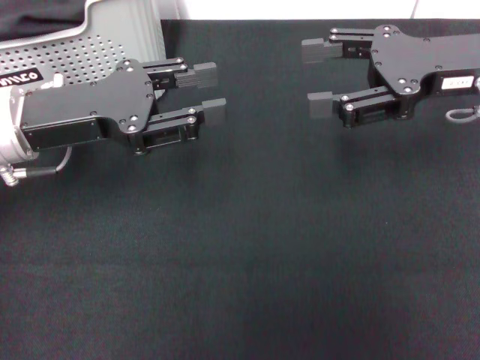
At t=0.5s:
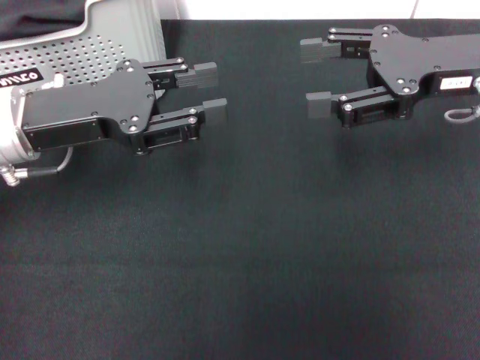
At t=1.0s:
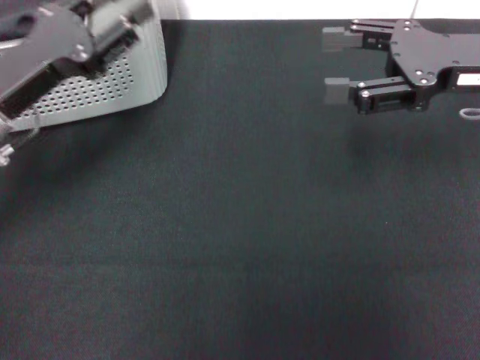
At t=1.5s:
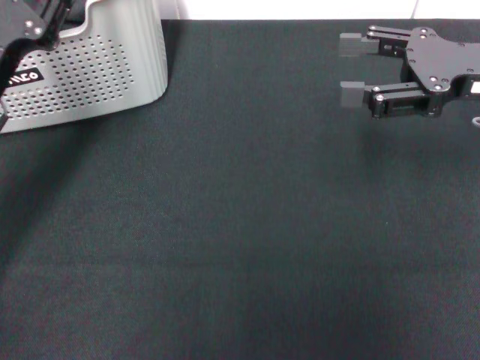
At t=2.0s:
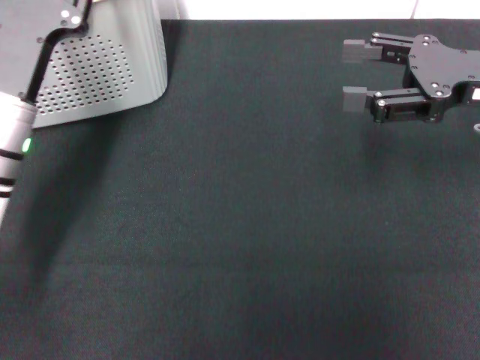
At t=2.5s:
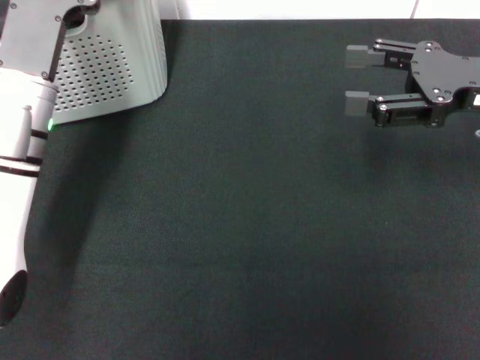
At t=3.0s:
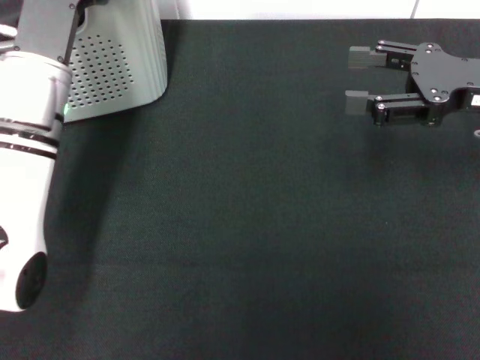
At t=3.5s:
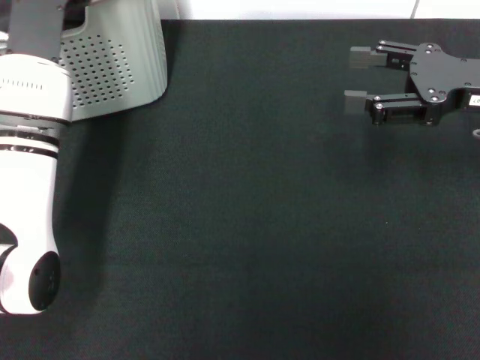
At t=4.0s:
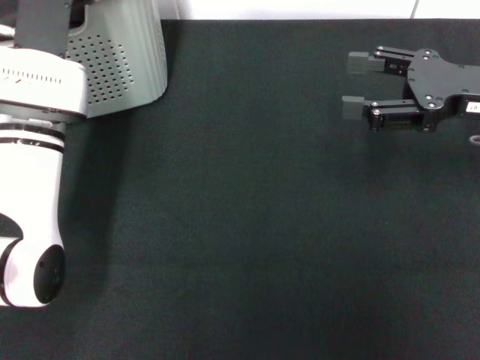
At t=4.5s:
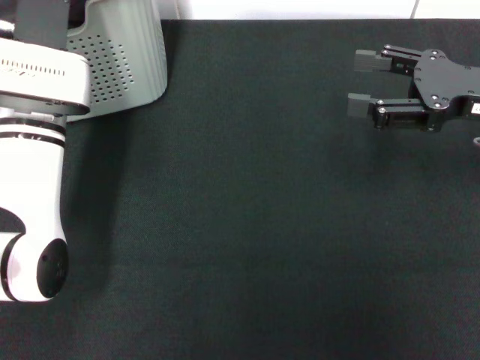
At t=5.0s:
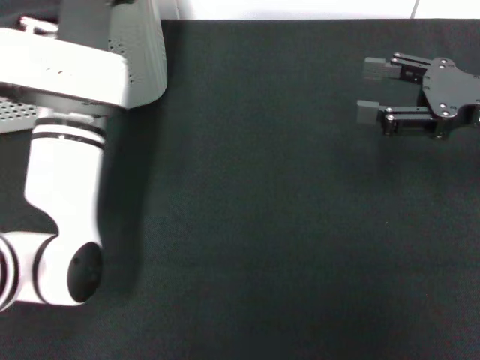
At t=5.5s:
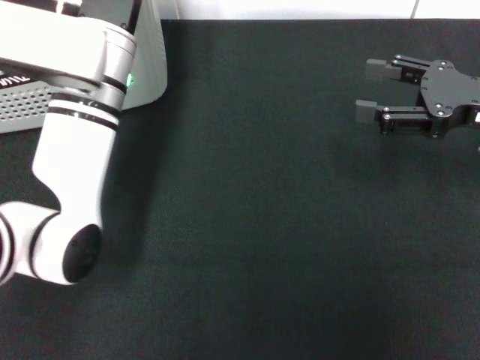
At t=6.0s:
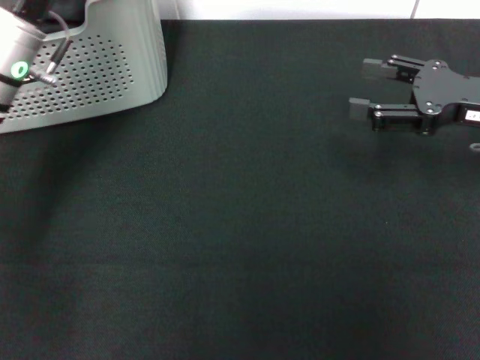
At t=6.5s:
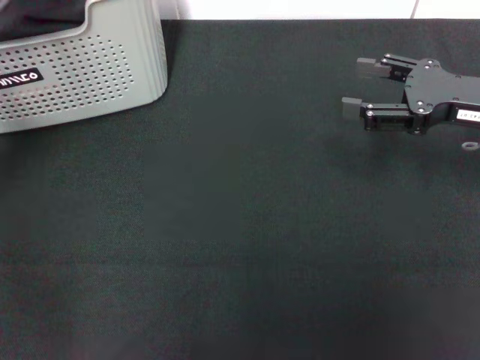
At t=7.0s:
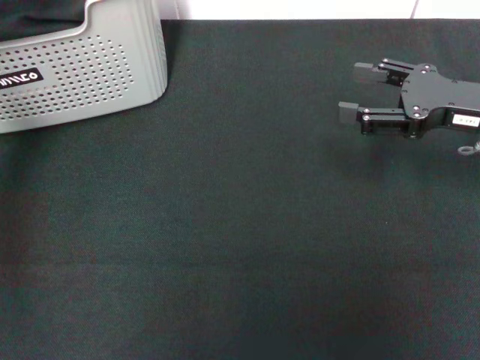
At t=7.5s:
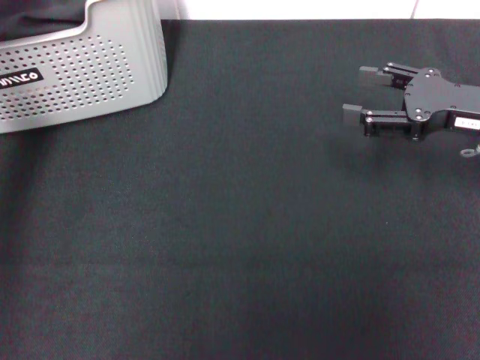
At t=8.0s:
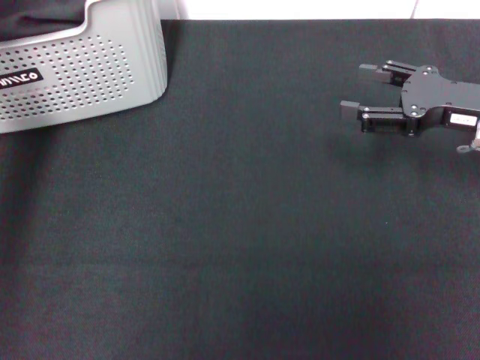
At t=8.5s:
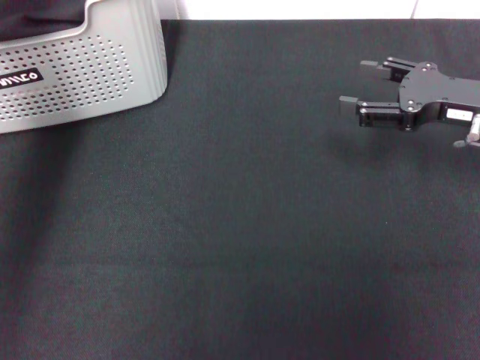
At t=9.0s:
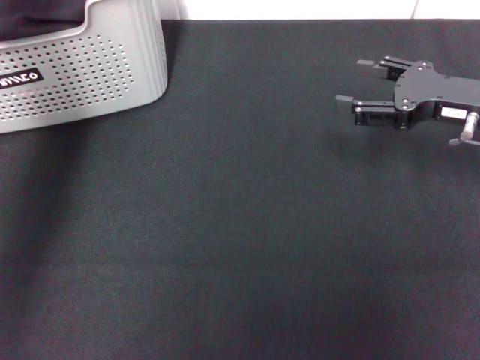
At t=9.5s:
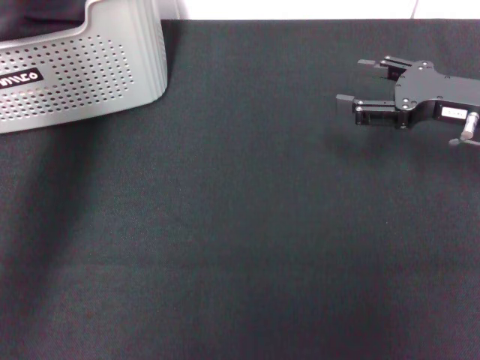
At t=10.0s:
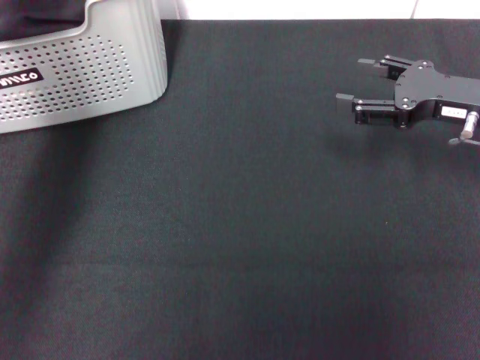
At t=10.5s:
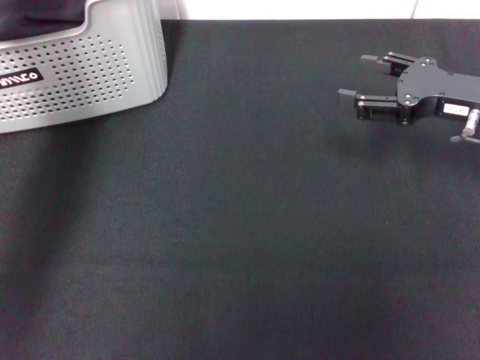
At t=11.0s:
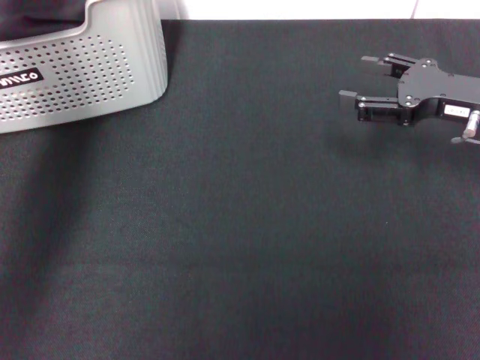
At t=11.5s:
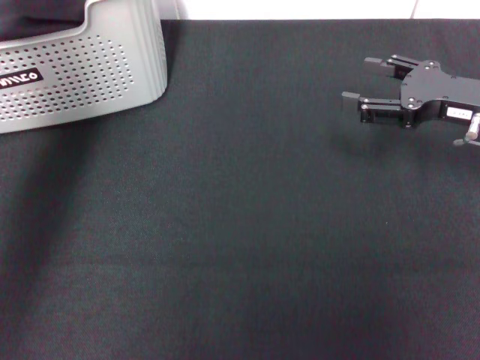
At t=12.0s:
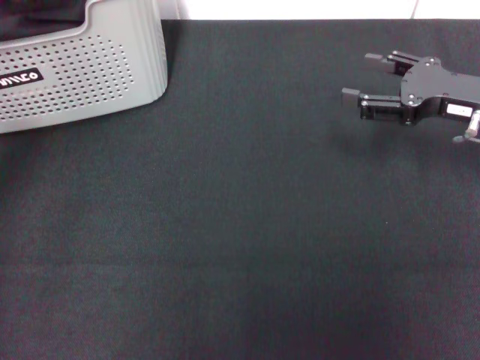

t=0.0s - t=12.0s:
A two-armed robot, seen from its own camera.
Task of the whole recording: pick up the towel from the storage box and lay it flat on the black tablecloth.
Step, t=0.0s - t=10.5s: Pick up a towel with the left gripper.
t=0.0s - t=2.0s: The left gripper heads downward, covering about 5 cm.
t=2.0s - t=4.0s: The left gripper shifts by roughly 5 cm.
t=4.0s - t=6.0s: The left gripper ends up about 5 cm from where it was.
t=6.0s - t=8.0s: The left gripper goes approximately 10 cm upward.
t=10.0s - t=12.0s: The left gripper closes its fingers.

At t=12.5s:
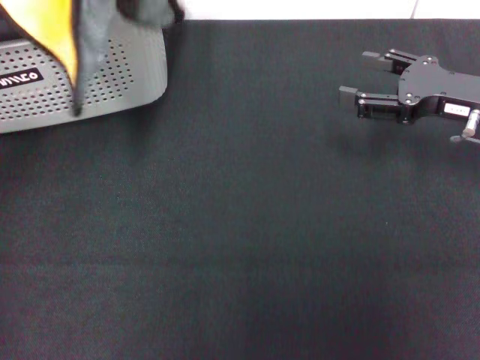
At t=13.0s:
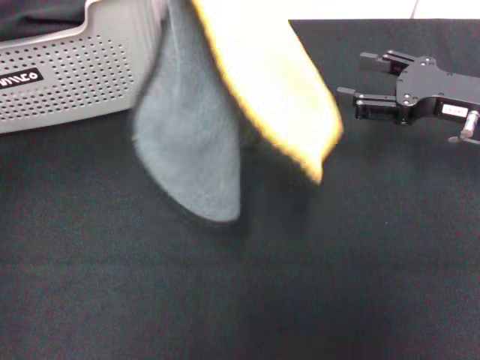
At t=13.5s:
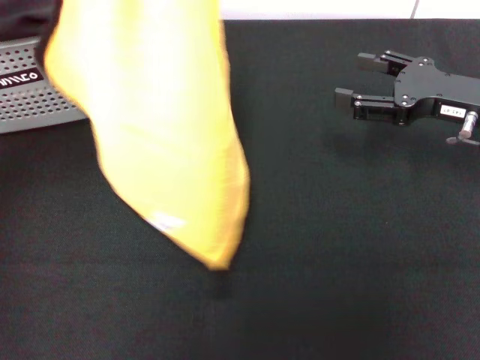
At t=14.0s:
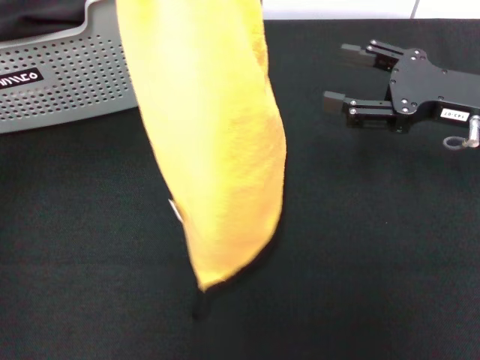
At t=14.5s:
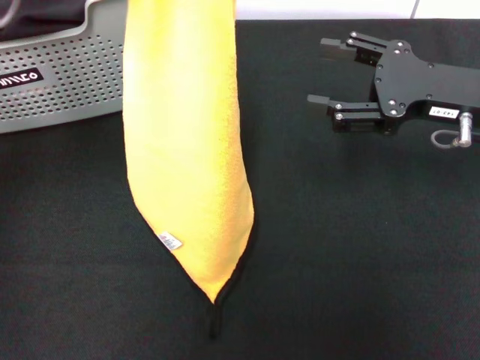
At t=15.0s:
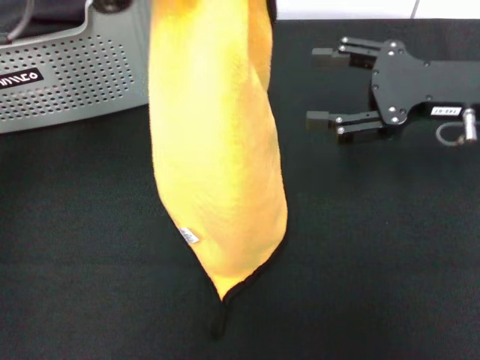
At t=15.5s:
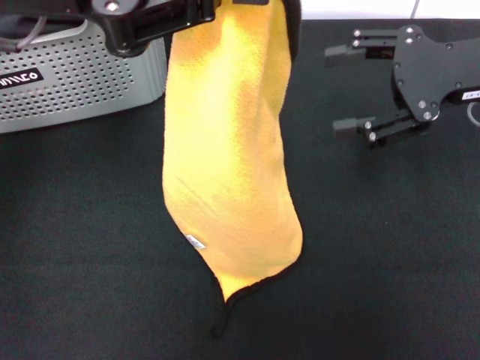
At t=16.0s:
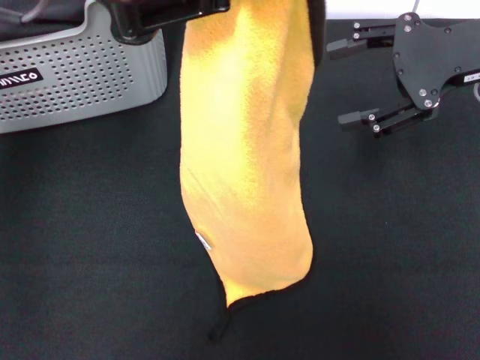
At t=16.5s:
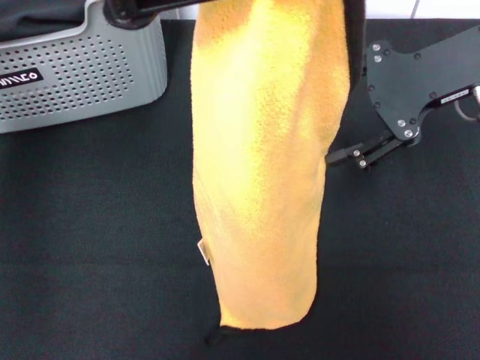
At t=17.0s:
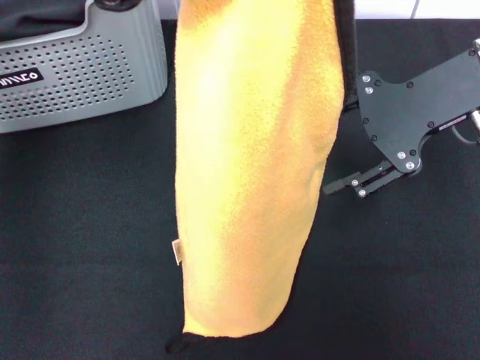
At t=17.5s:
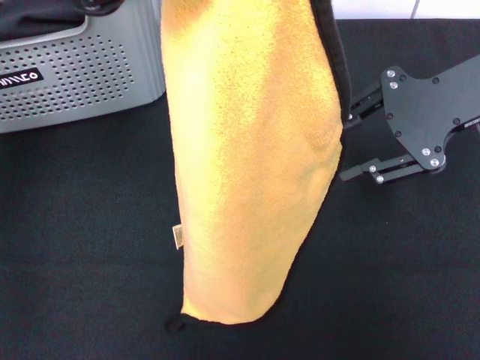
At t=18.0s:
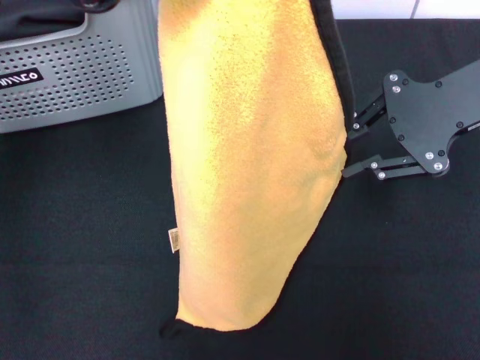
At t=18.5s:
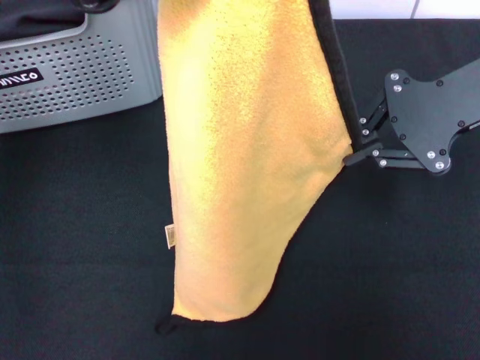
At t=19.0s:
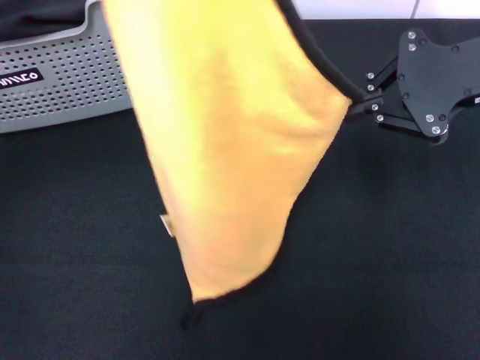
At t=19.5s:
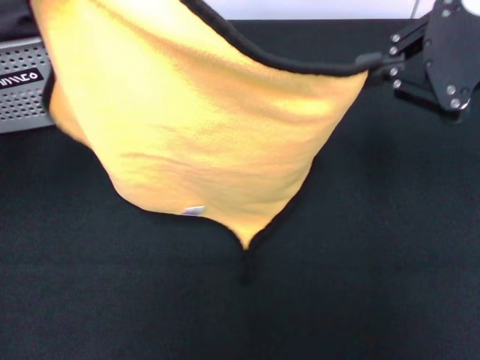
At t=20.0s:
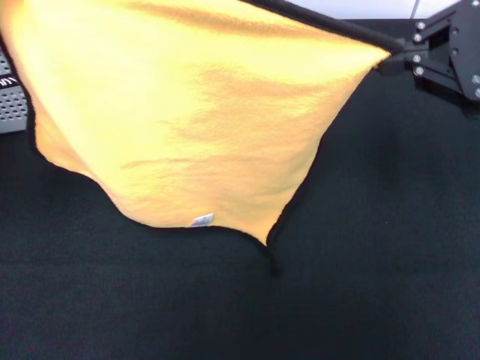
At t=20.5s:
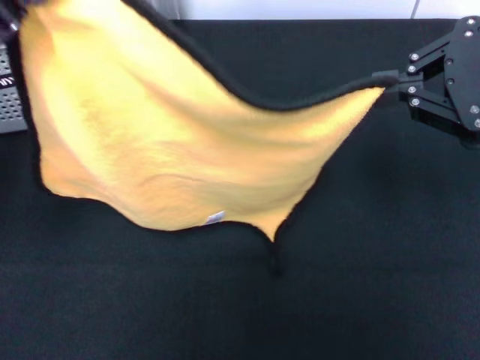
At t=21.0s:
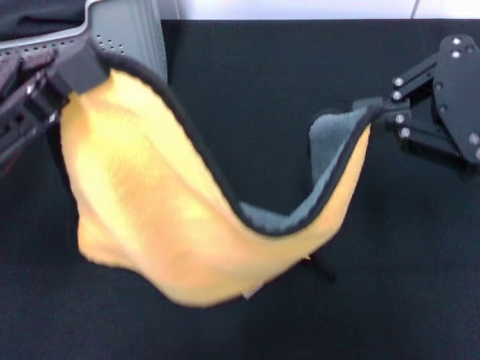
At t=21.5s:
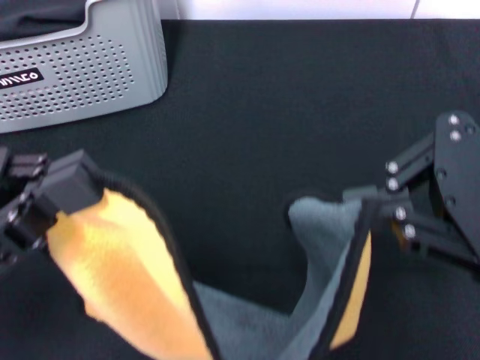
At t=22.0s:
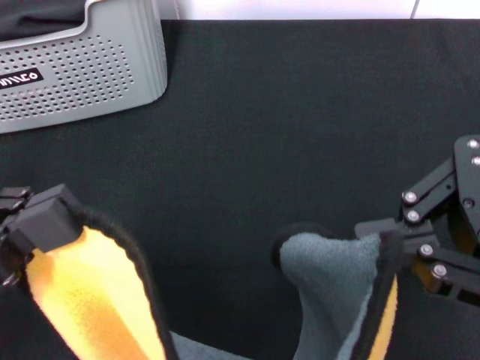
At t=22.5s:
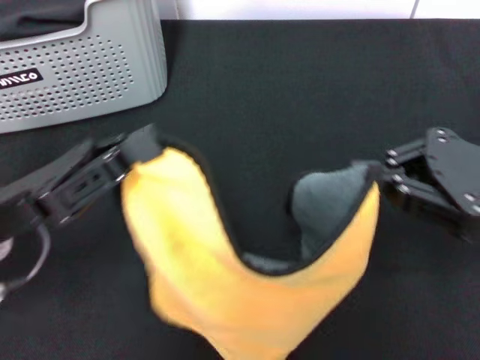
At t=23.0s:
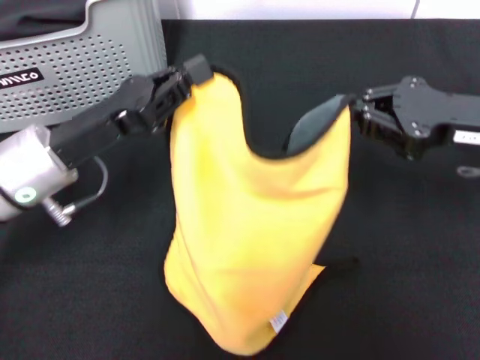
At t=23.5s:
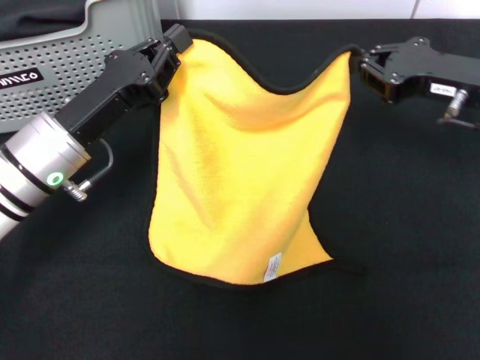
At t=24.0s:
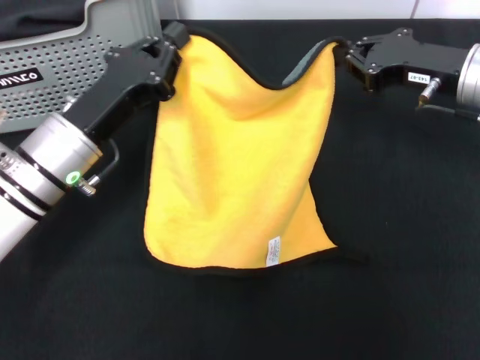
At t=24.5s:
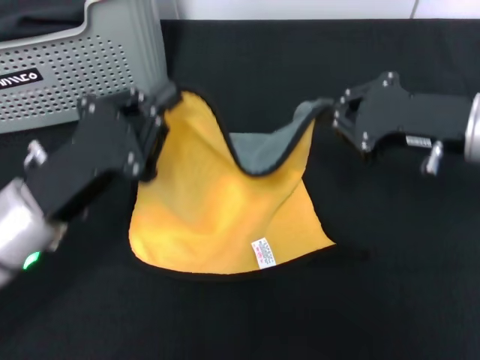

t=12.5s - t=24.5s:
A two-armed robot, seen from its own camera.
Task of the whole recording: pick up the towel from the storage box and lay it flat on the black tablecloth.
Step, t=12.5s - t=18.5s: Spread the towel flat with the left gripper.
t=14.5s - t=16.5s: The two grippers go approximately 5 cm upward.
t=16.5s - t=18.5s: The right gripper closes its fingers.
t=18.5s - t=20.5s: The right gripper travels backward by some 5 cm. Meanwhile the left gripper is displaced downward, to the left and backward by roughly 15 cm.
t=20.5s - t=22.5s: The two grippers go roughly 10 cm downward. The left gripper travels backward and back again, roughly 10 cm each way.
t=22.5s - t=24.5s: The left gripper reaches approximately 10 cm forward, then returns, while the right gripper goes roughly 5 cm forward.

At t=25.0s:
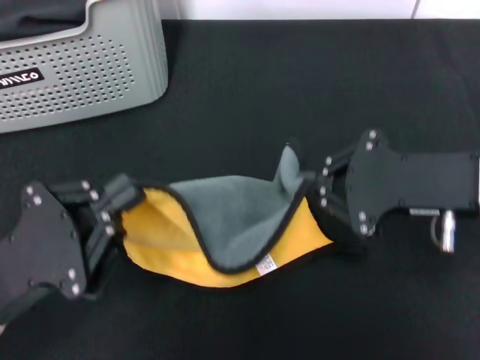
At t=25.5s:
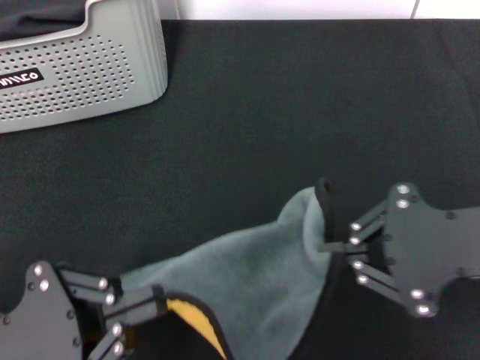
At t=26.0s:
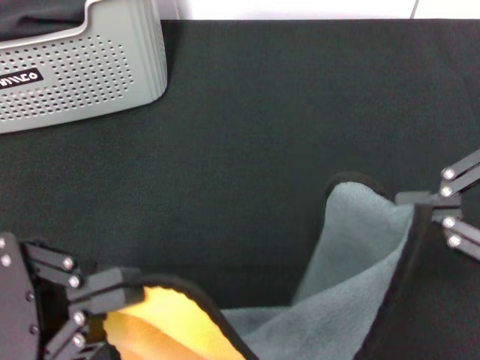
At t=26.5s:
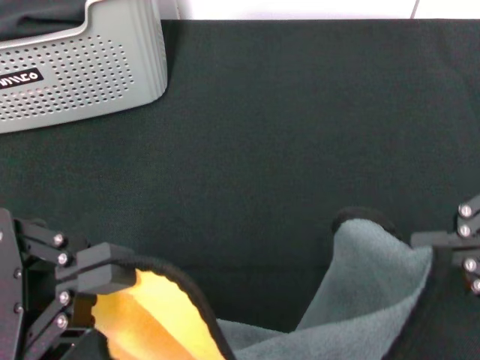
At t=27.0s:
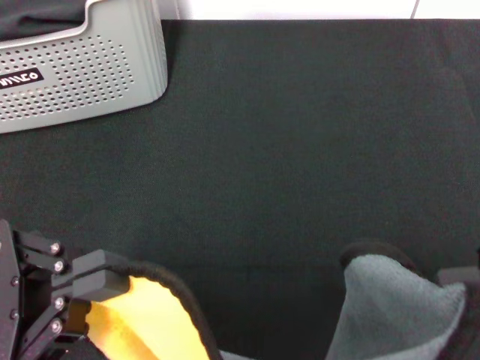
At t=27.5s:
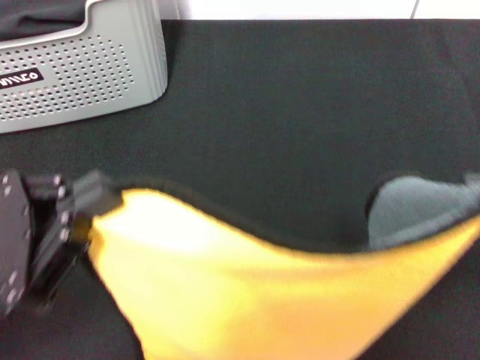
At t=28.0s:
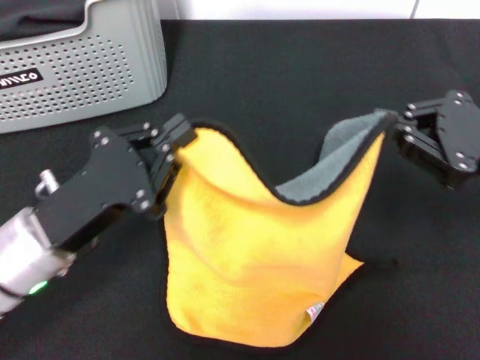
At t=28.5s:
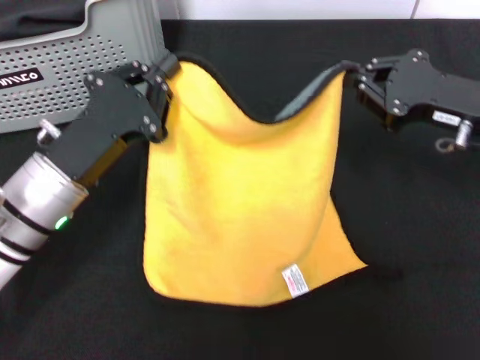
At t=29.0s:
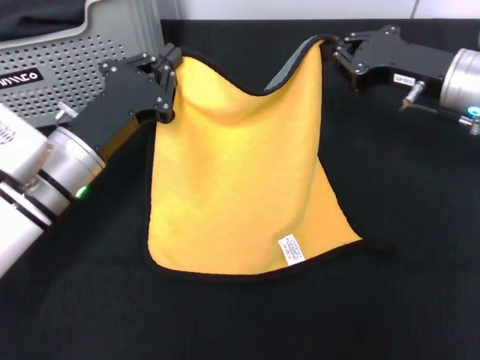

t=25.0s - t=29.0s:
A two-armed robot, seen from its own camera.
Task of the whole recording: pick up the towel from the storage box and lay it flat on the black tablecloth.
t=25.0s - t=27.0s: The right gripper goes some 15 cm backward, upward and to the right. The left gripper shifts some 5 cm upward.
t=27.0s - t=29.0s: The two grippers go approximately 20 cm forward and downward.
